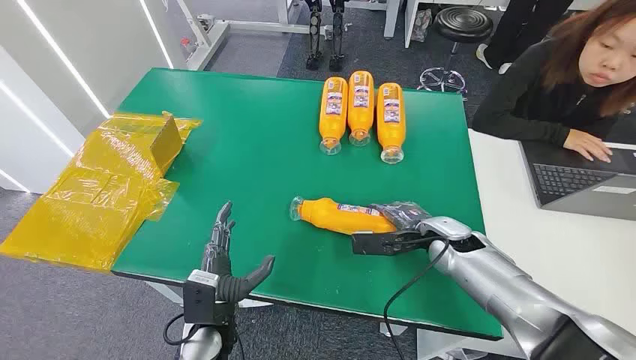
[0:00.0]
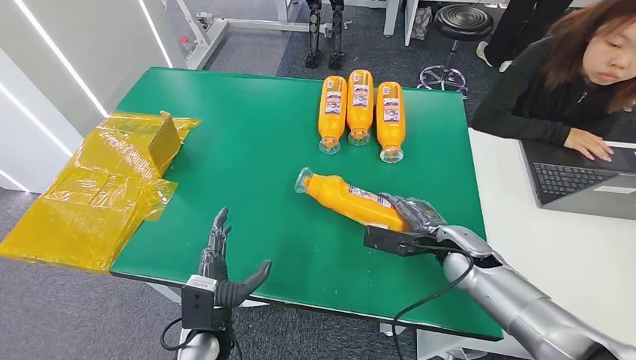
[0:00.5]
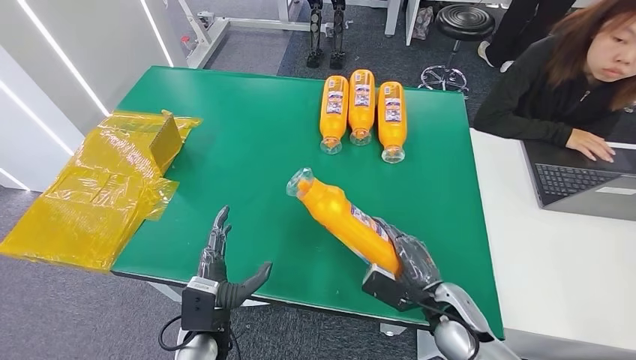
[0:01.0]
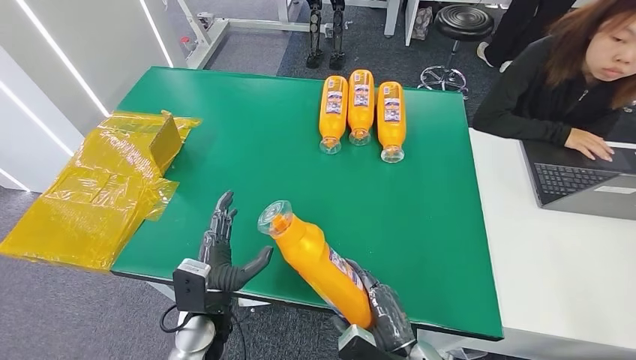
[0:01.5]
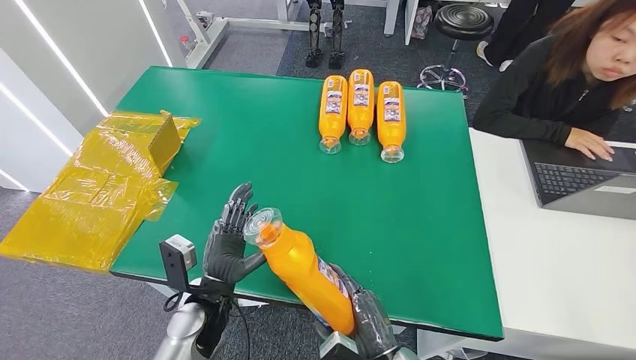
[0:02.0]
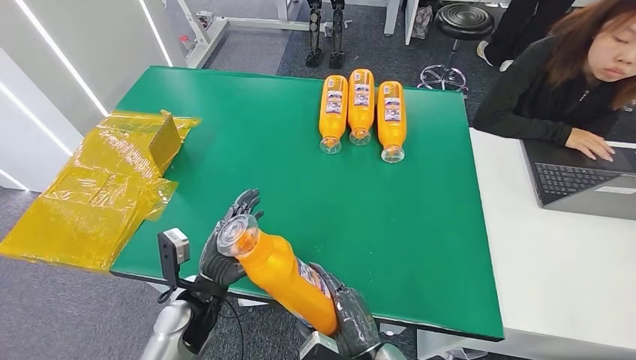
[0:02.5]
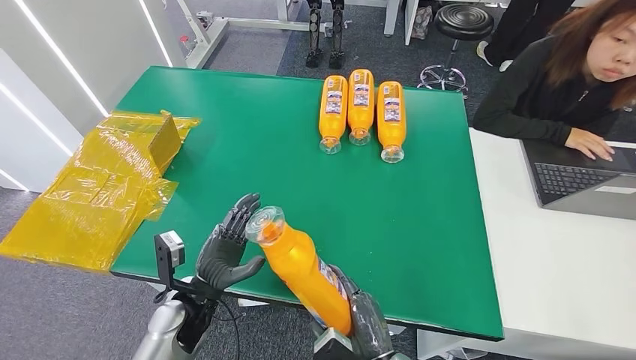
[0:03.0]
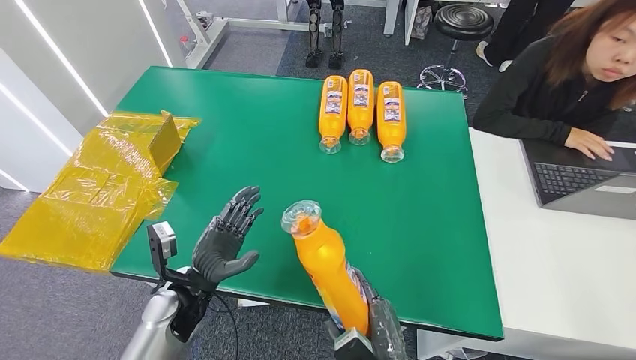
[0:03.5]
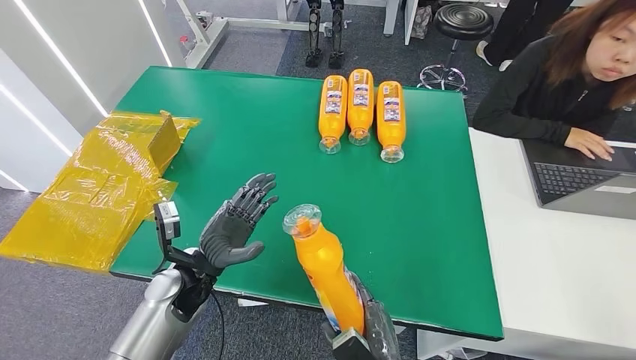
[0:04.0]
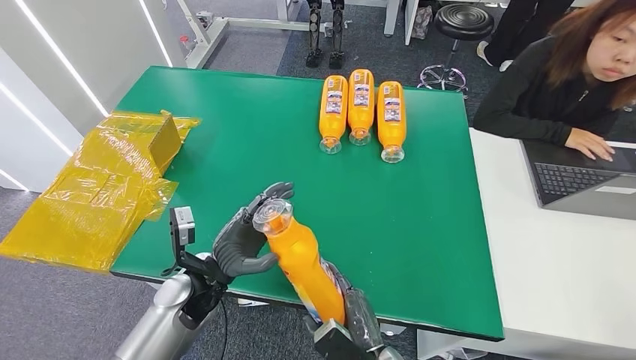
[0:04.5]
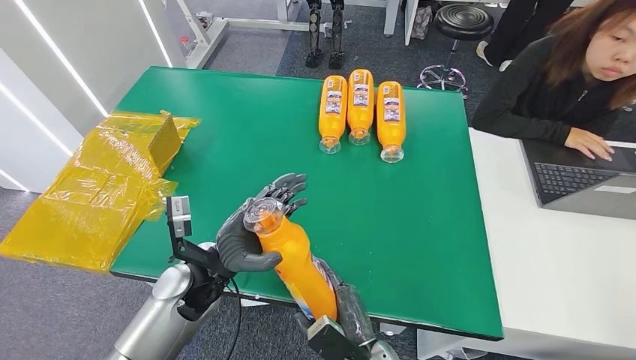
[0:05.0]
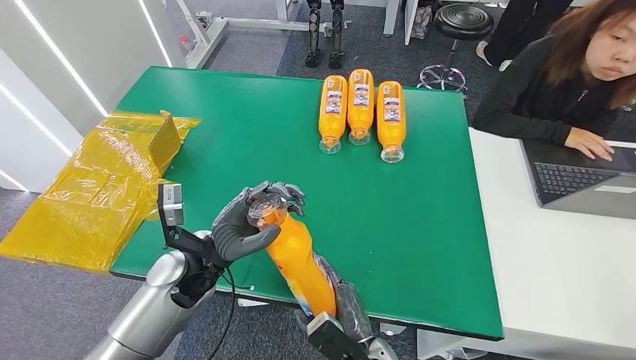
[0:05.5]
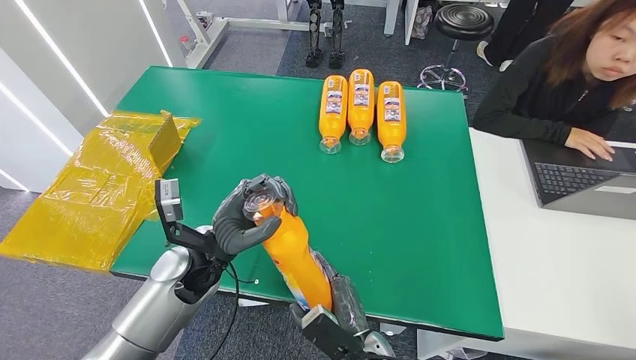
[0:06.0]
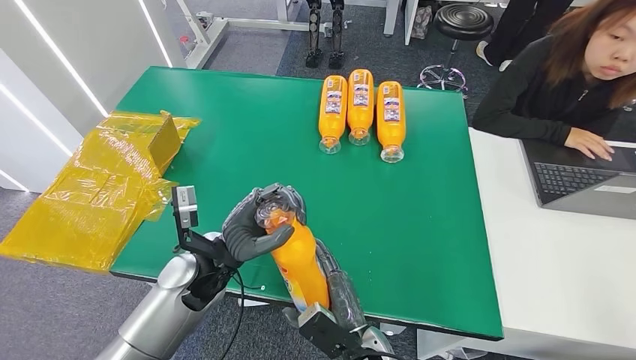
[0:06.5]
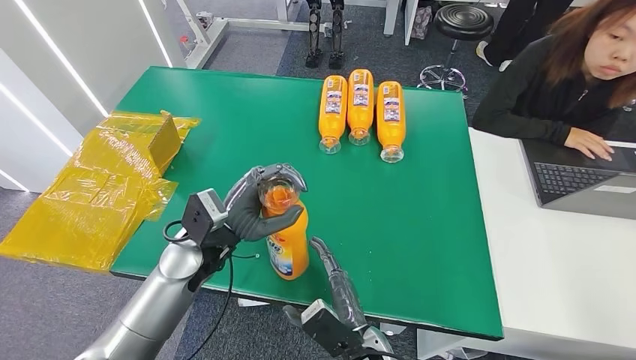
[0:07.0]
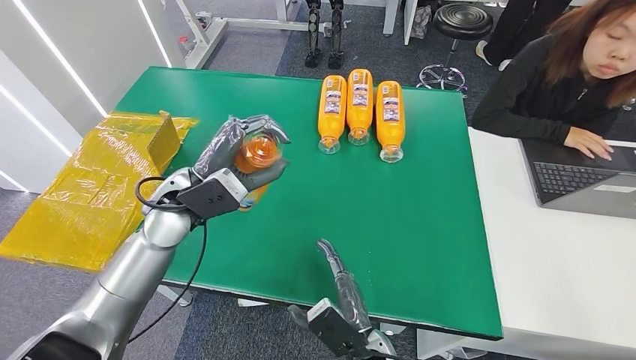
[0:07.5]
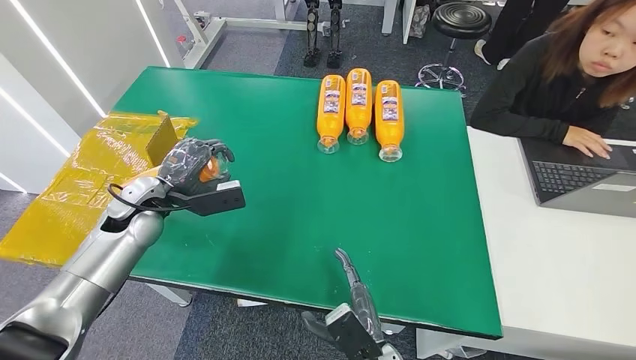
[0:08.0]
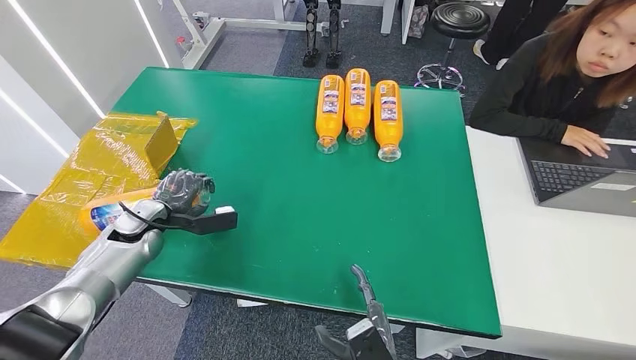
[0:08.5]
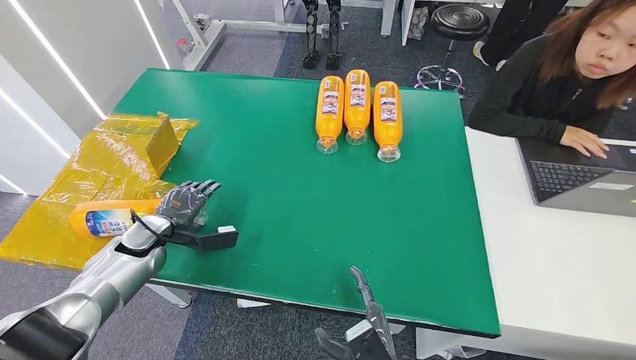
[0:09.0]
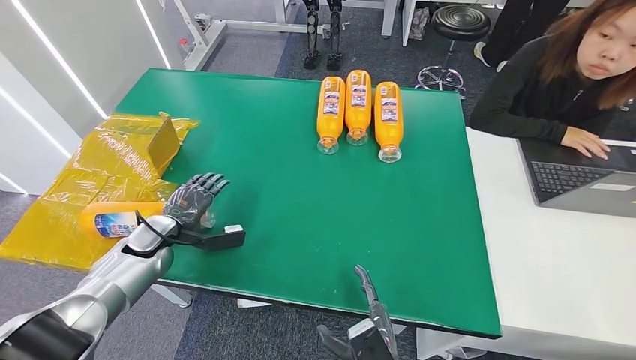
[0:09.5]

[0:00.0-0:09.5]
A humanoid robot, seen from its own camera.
Step, 0:00.0 to 0:03.0: Pick up the bottle from the table.
Step, 0:03.5 to 0:09.5: Turn the bottle to the front side.
0:02.0 to 0:04.0: The left hand shifts some 5 cm to the left.
0:04.0 to 0:05.5: The right hand shifts by some 5 cm. The left hand shifts roughly 5 cm upward.
0:05.5 to 0:07.5: The left hand moves upward and forward, about 10 cm.
0:07.5 to 0:09.5: The right hand shifts by approximately 5 cm; the left hand goes about 20 cm downward and to the left.
